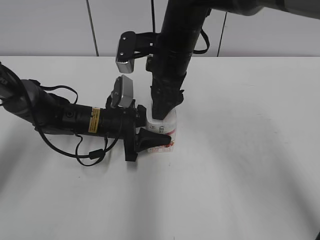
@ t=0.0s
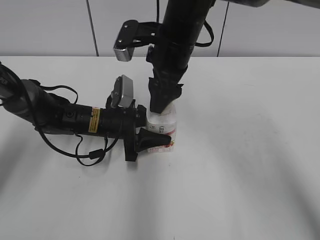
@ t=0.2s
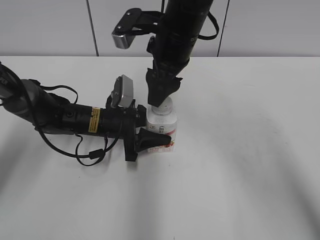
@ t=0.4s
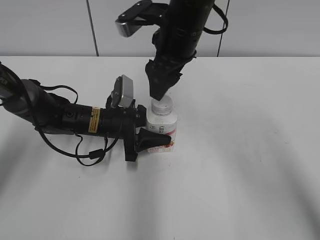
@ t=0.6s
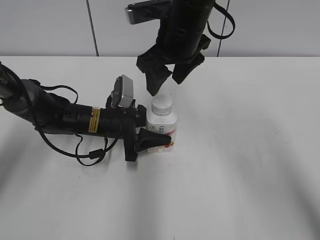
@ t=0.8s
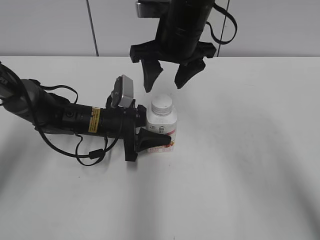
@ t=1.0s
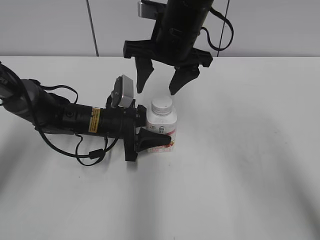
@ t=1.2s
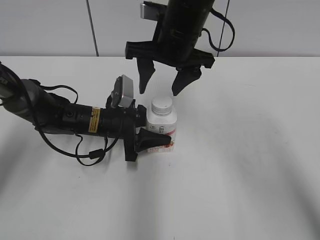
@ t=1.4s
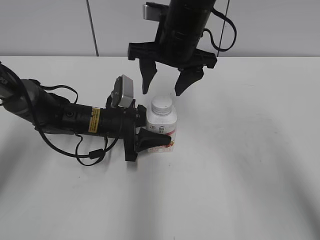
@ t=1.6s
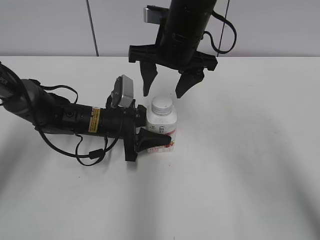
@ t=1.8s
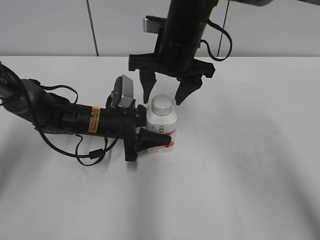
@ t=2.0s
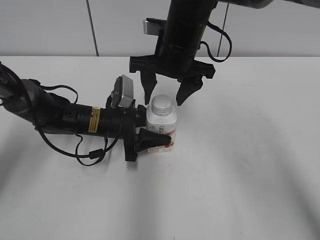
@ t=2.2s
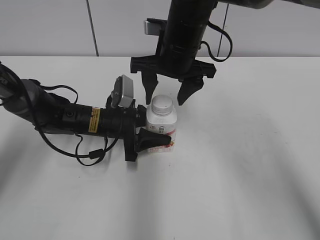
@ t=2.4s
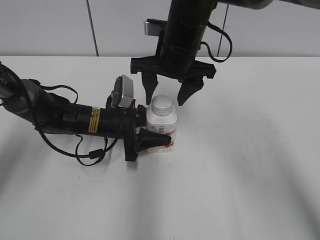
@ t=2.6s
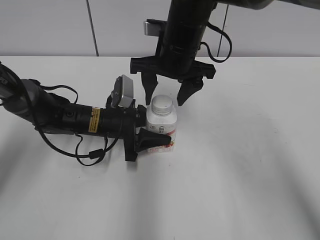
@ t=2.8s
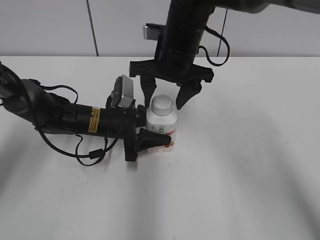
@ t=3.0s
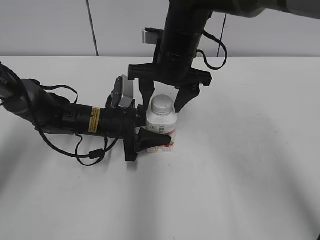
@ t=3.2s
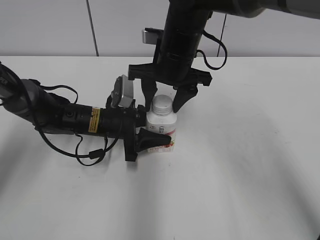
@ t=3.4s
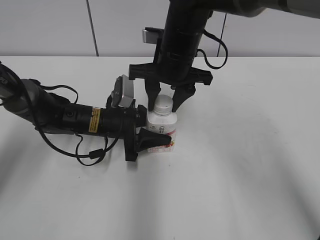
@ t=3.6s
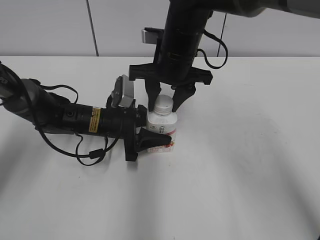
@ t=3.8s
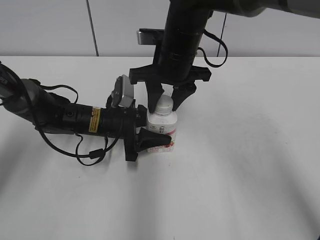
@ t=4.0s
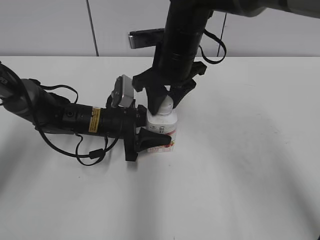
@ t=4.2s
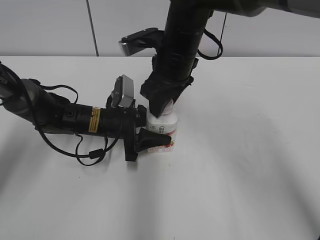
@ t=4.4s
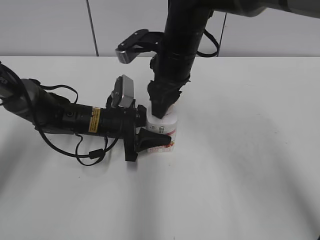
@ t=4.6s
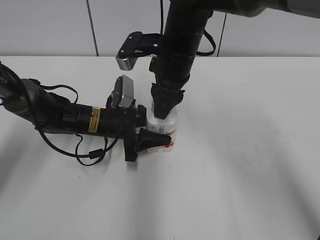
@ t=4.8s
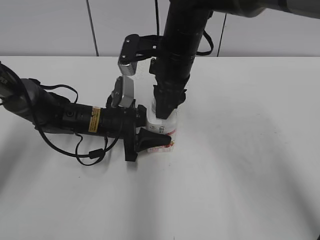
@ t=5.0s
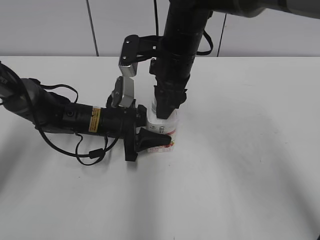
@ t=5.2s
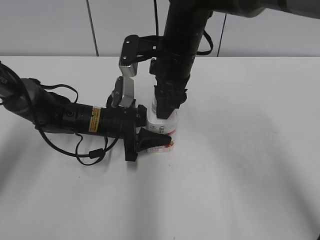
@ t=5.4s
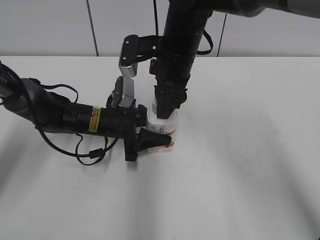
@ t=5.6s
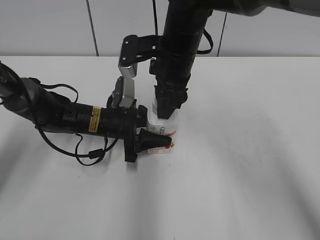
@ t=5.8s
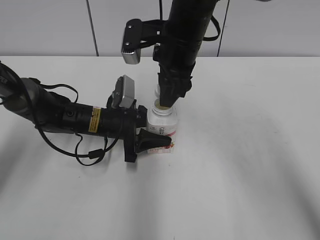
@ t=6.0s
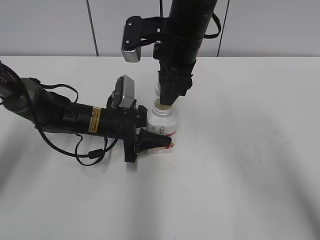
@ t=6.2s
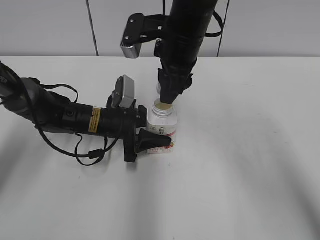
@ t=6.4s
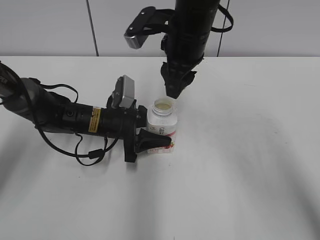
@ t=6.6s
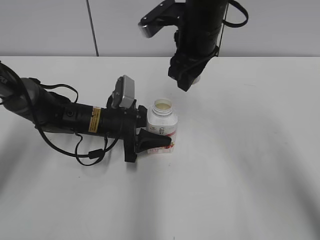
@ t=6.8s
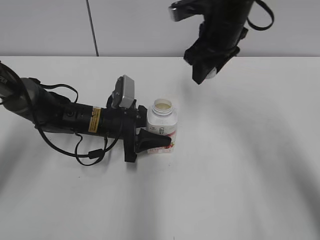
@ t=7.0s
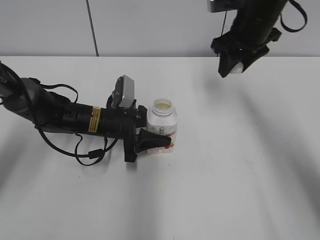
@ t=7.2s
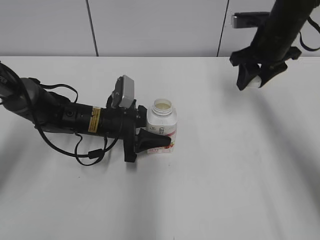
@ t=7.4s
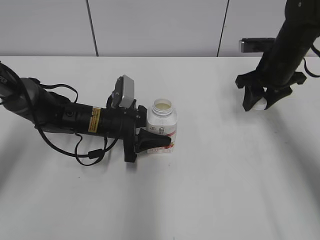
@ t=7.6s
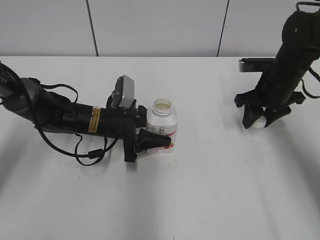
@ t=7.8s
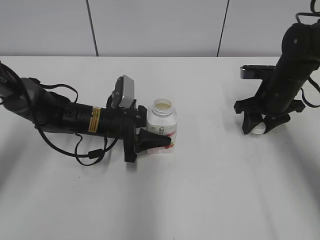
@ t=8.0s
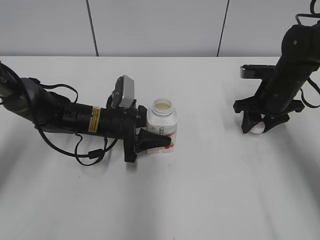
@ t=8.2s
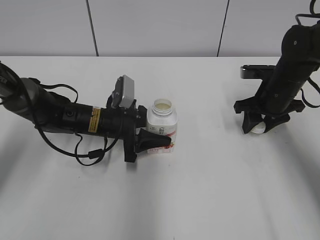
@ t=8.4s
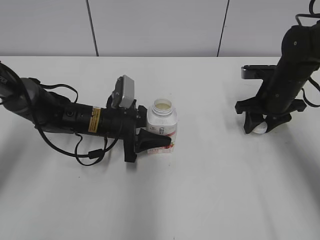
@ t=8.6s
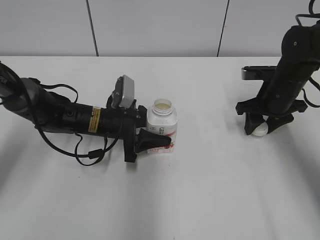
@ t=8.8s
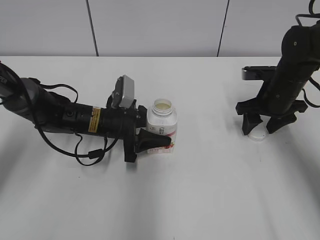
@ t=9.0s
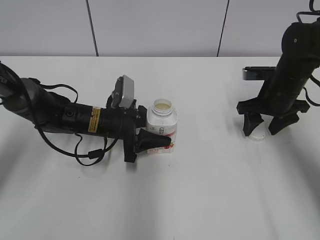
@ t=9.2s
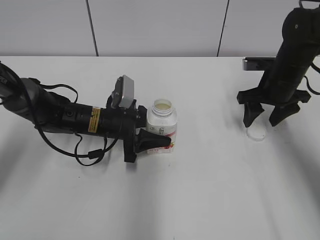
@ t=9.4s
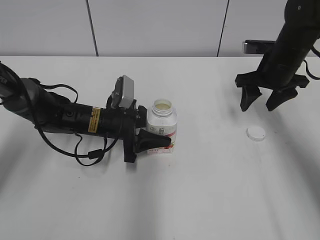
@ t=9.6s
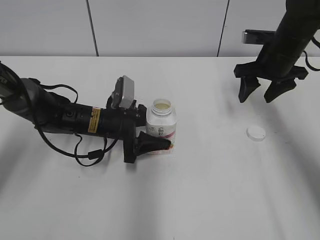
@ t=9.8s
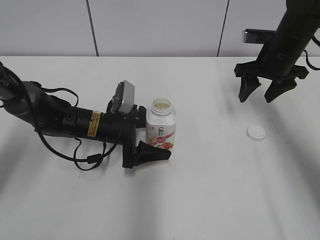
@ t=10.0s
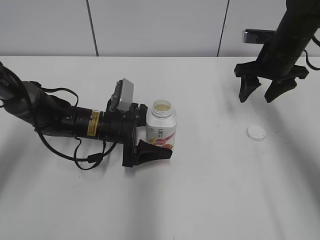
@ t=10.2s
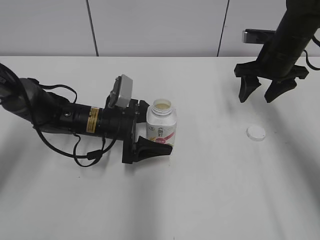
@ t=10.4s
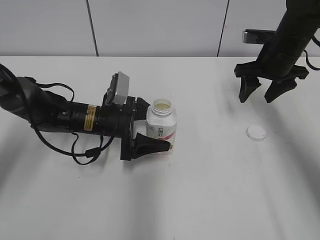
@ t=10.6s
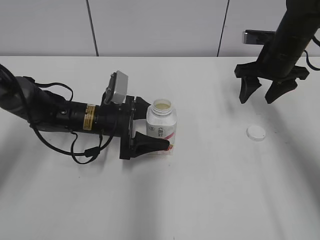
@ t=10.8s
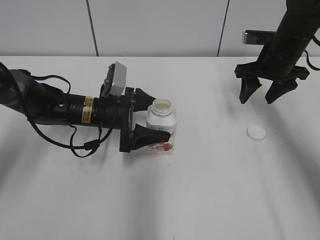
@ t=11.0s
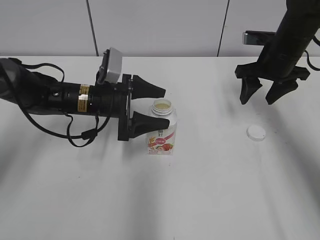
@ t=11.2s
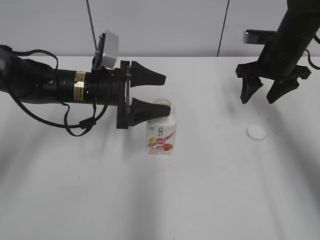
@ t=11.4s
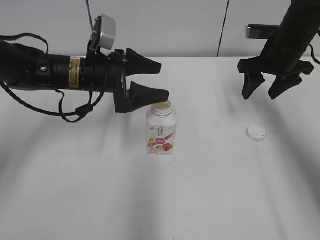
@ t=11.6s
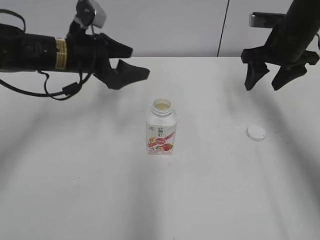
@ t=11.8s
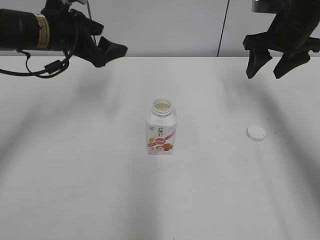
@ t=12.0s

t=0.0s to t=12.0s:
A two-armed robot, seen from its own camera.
Step, t=6.0s to t=9.0s: Place the bottle cap on the right.
Step, t=9.4s to t=10.2s: Place the Yili Changqing with the left hand.
t=1.6s to t=3.0s: The grippers make only small movements.
t=3.0s to t=4.4s: The right gripper closes up.
t=6.0s to t=7.6s: The right gripper shifts about 20 cm to the right.
t=7.6s to t=9.0s: The right gripper heads downward, covering roughly 5 cm, and opens up.
t=9.0s to t=10.4s: The left gripper opens up, while the right gripper heads upward, covering approximately 5 cm.
t=10.4s to t=12.0s: The right gripper heads upward, covering some 5 cm. The left gripper travels upward and to the left by approximately 20 cm.

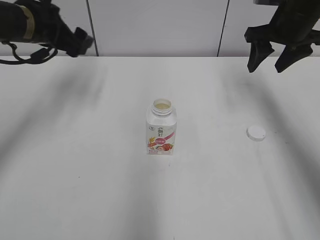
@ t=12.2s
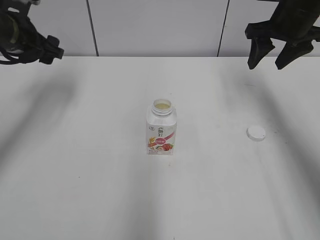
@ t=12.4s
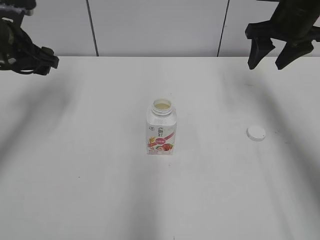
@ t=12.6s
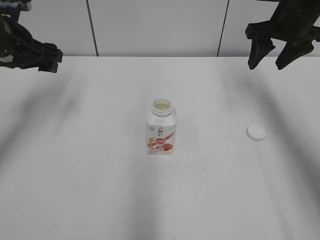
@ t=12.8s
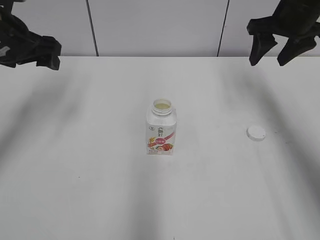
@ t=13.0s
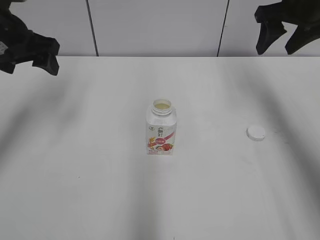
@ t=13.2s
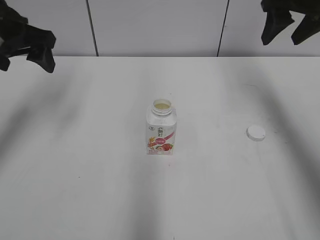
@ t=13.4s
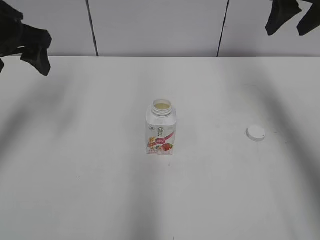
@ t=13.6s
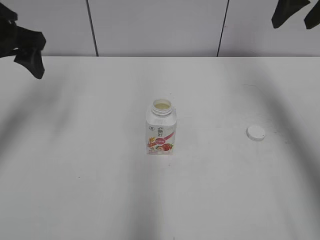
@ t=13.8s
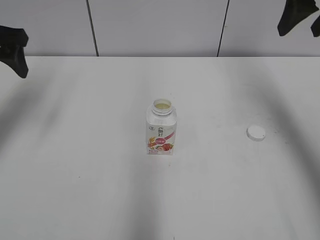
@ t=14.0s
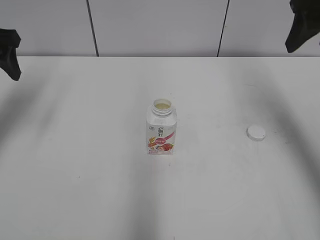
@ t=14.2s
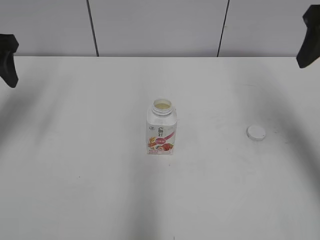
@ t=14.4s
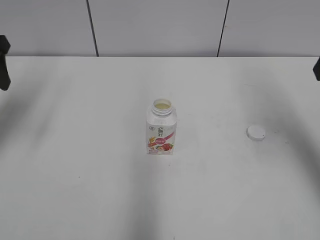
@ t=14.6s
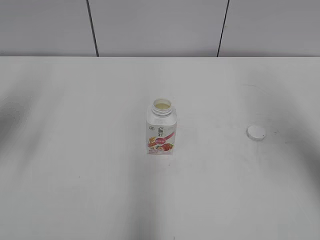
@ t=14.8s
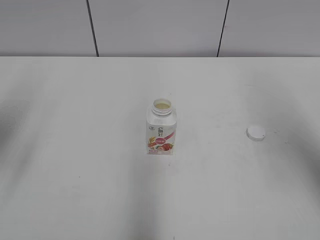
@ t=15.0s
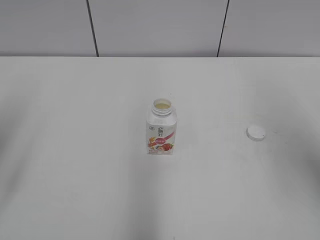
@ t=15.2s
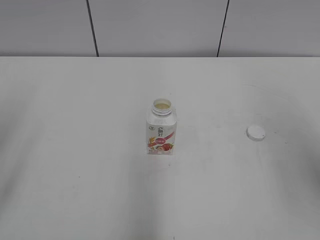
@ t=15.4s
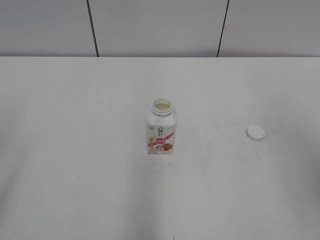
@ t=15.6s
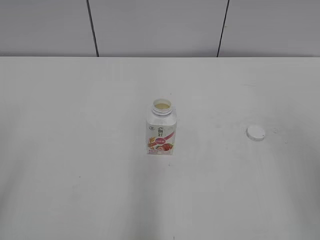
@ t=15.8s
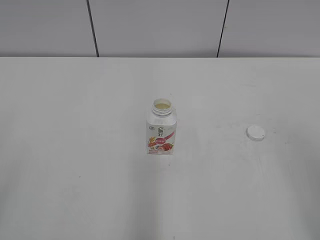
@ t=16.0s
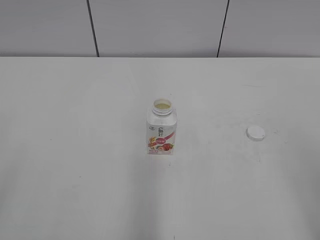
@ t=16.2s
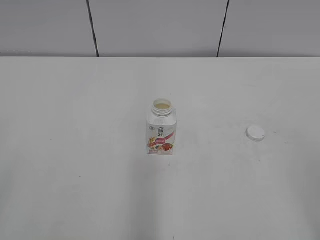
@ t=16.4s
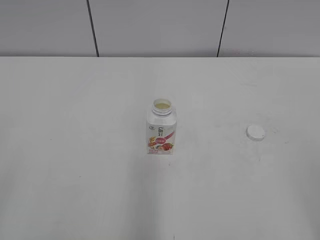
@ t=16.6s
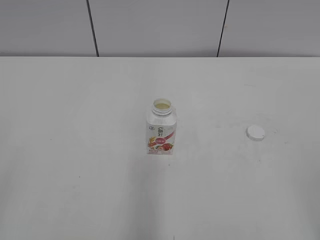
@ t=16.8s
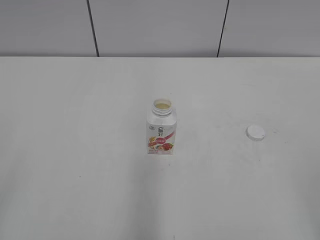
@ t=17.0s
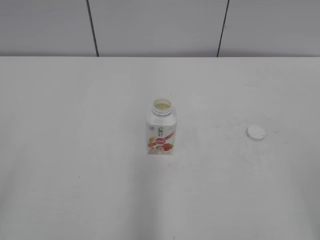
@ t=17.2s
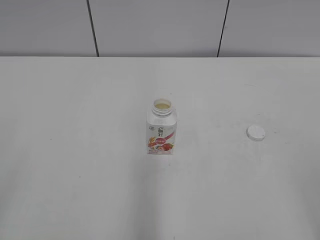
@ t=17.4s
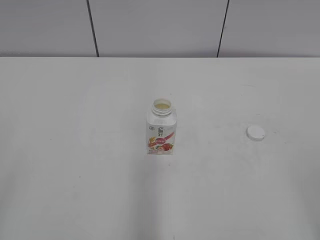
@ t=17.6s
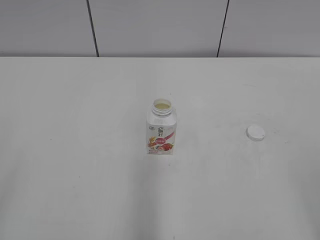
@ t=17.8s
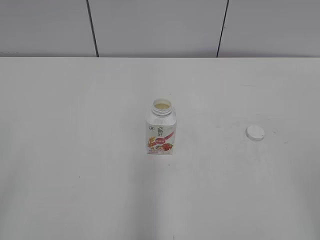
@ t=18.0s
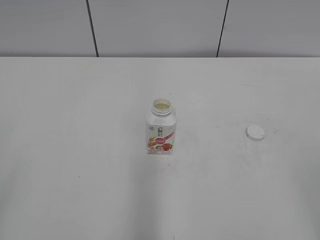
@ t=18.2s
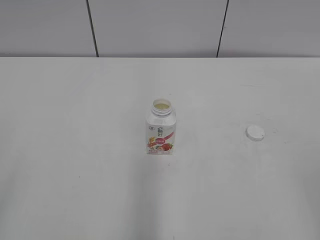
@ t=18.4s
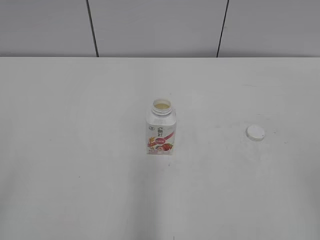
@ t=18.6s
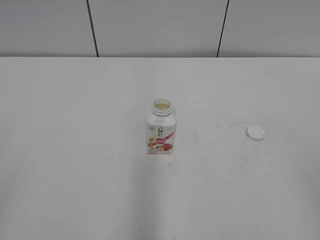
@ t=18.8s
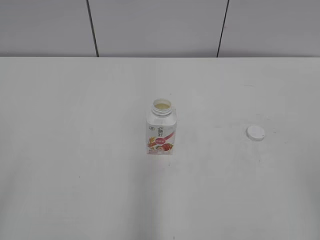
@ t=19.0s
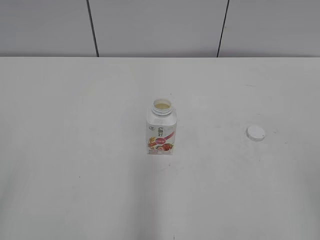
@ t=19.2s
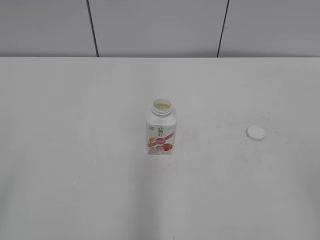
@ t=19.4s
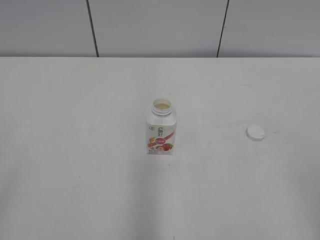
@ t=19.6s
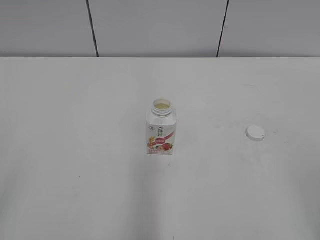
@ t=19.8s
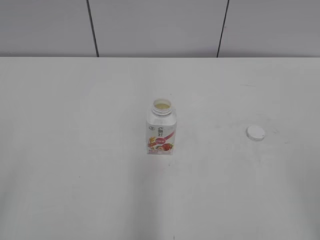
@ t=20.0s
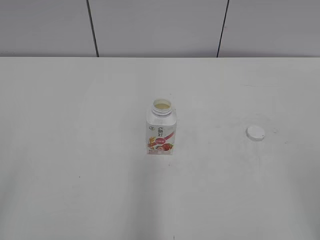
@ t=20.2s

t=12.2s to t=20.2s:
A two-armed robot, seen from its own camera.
t=12.2s to t=13.8s: The left gripper moves backward and upward, about 10 cm. The right gripper heads upward, covering about 10 cm.
t=13.8s to t=15.4s: The grippers both shift backward by approximately 20 cm.
t=15.4s to t=17.0s: The right gripper heads backward and downward, covering approximately 20 cm.
